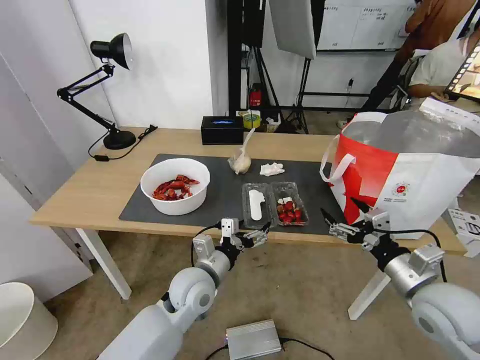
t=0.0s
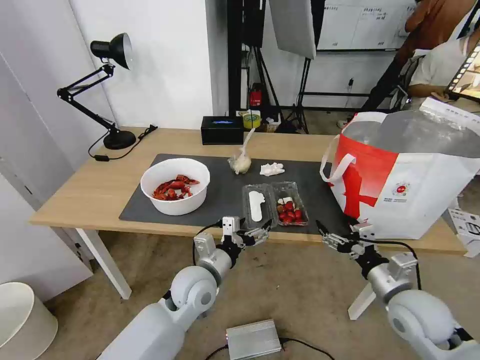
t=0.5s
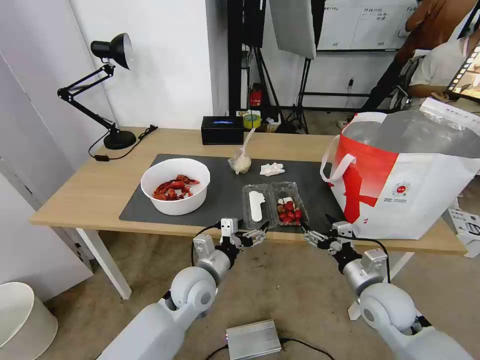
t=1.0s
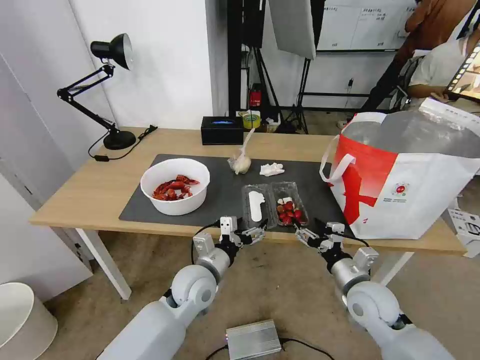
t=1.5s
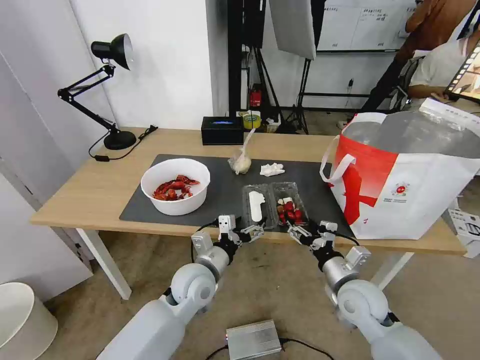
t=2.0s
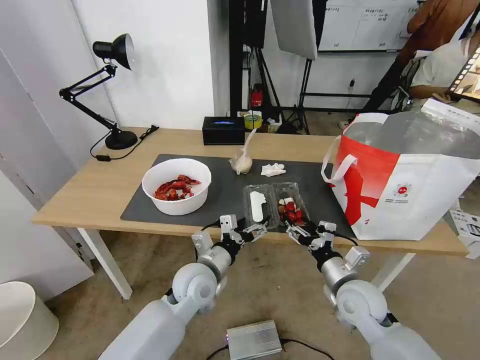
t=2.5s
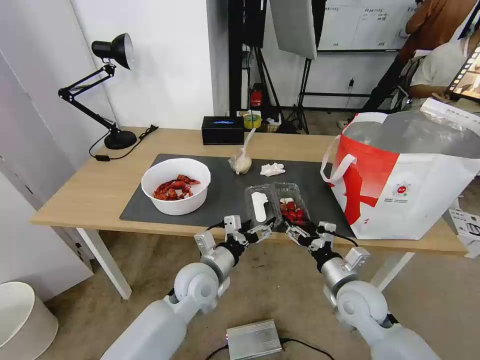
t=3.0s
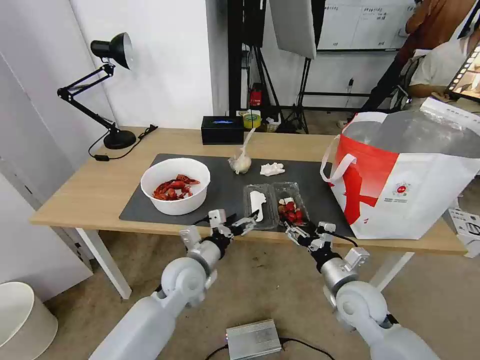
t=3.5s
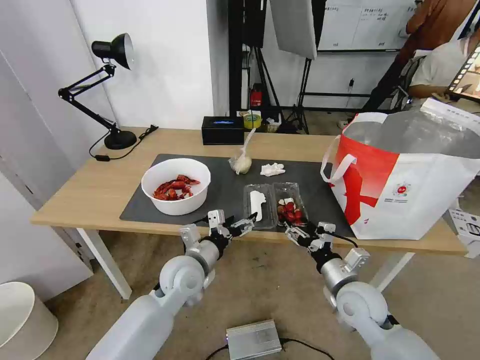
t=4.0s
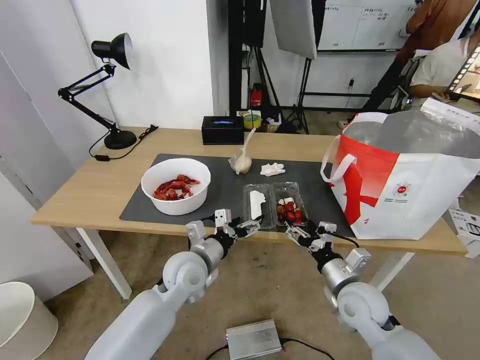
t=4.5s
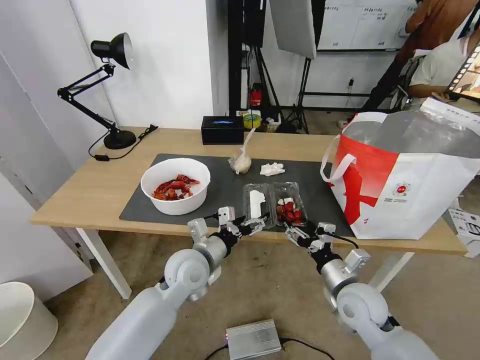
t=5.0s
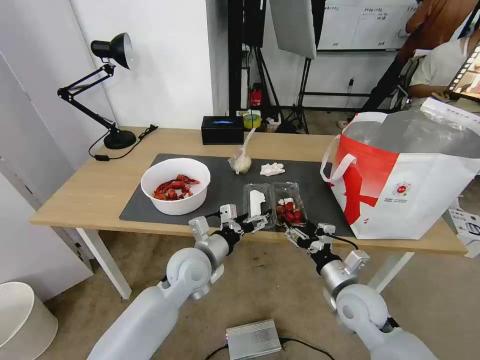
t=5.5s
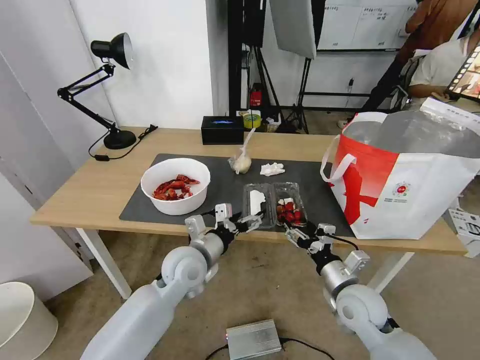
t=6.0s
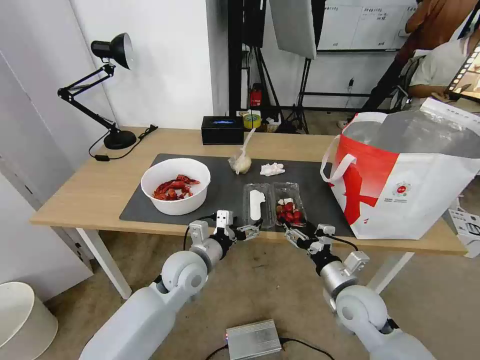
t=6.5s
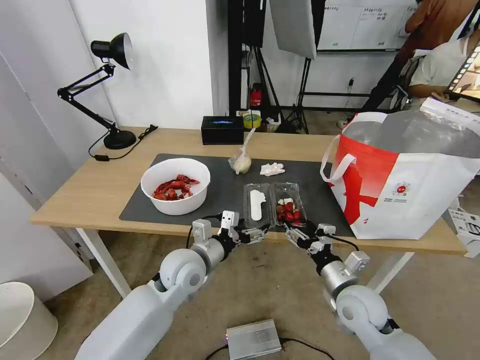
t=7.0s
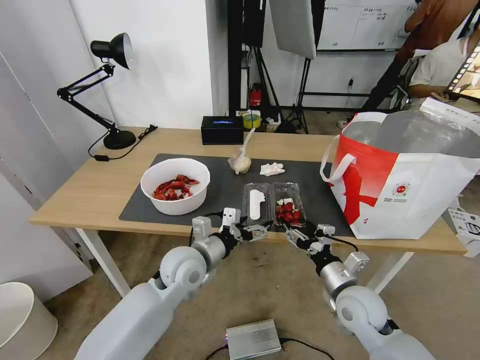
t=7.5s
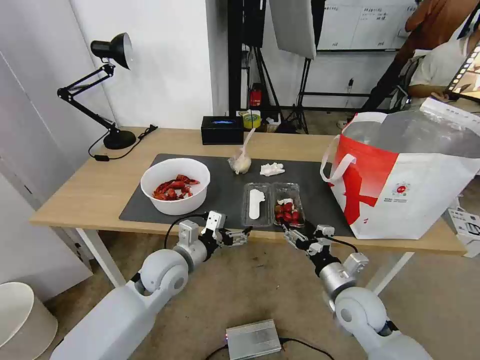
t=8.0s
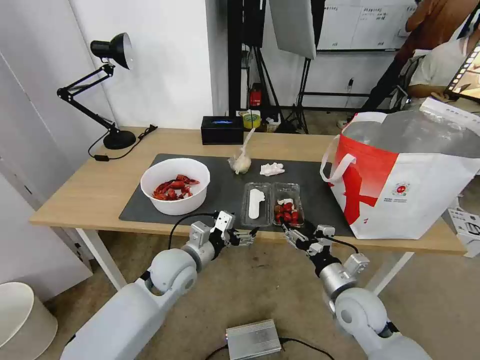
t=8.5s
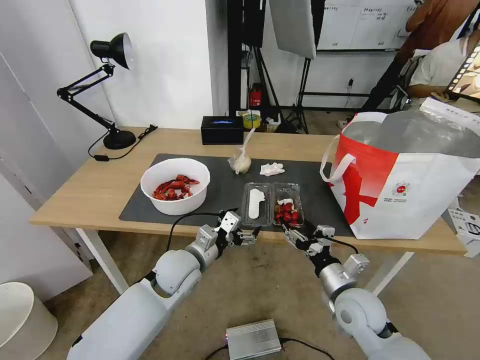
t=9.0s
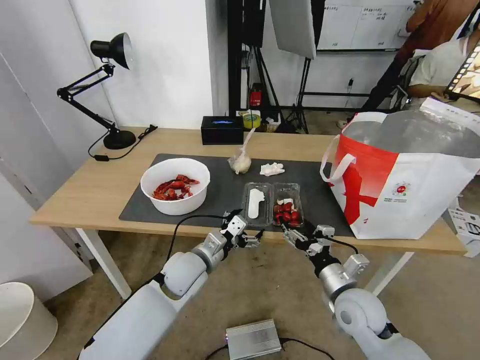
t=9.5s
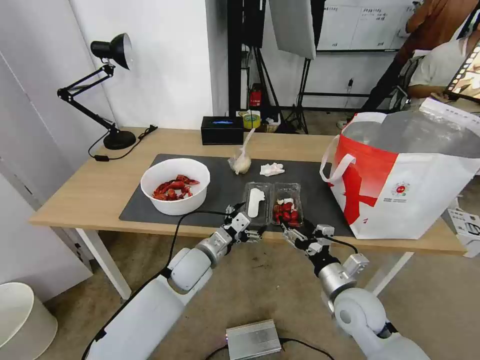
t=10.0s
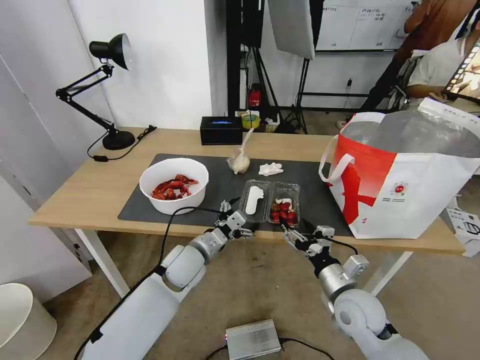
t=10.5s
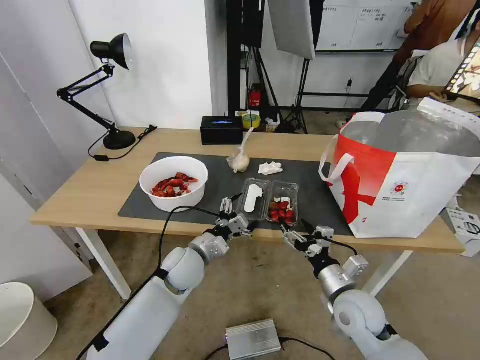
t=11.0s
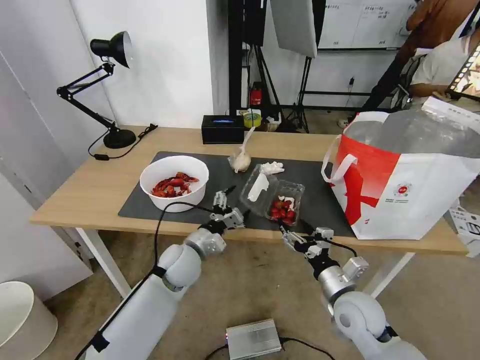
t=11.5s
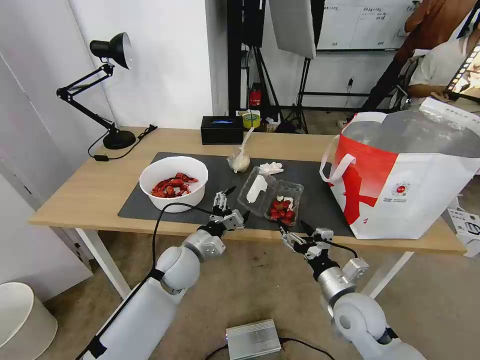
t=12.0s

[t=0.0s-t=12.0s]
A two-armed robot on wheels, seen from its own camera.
Task of the whole recording: Pick up the trash from the table and place it into the takeout bag.
t=0.0s to t=2.0s: The right gripper moves downward, to the left and forward, approximately 15 cm.
t=2.0s to t=6.0s: The grippers make only small movements.
t=8.0s to t=10.0s: The left gripper moves approximately 5 cm.

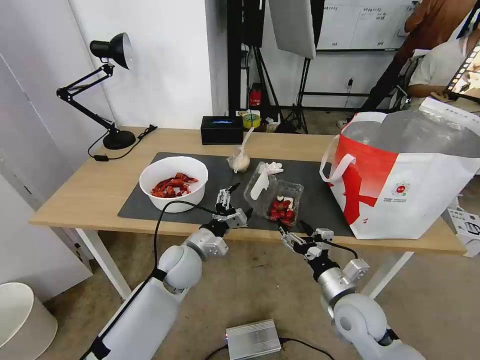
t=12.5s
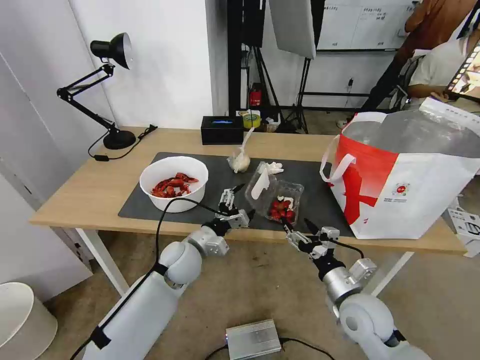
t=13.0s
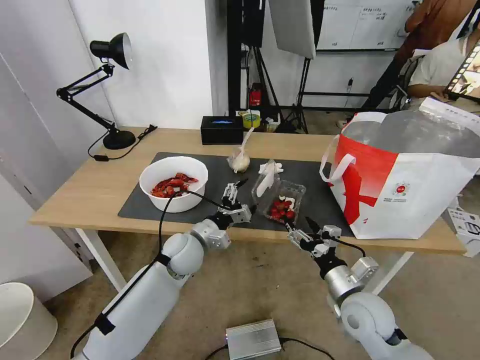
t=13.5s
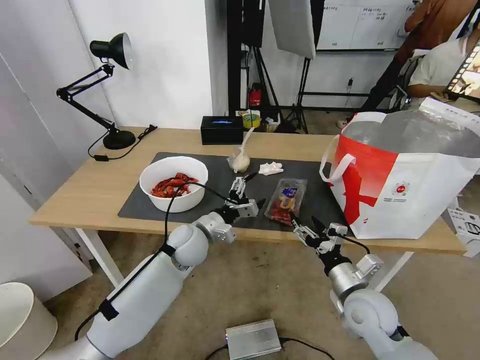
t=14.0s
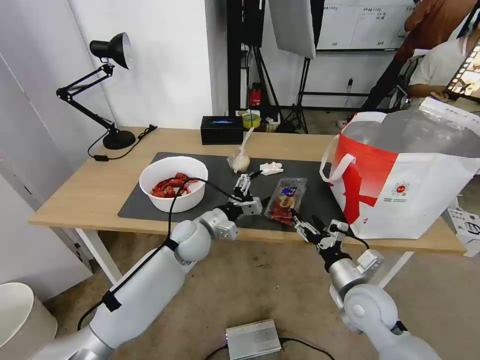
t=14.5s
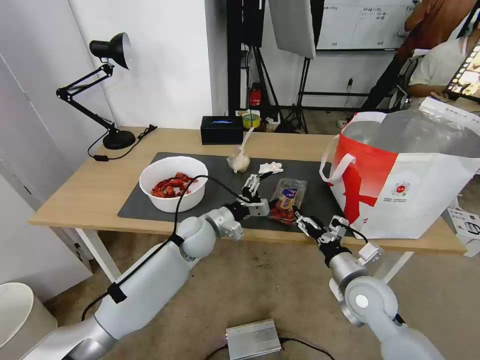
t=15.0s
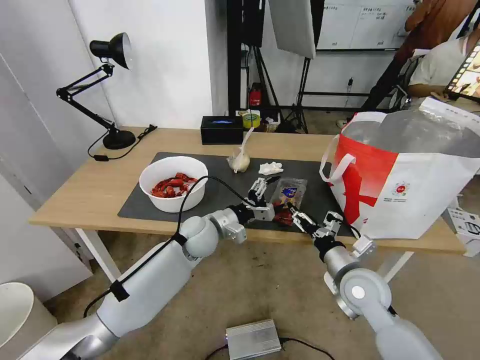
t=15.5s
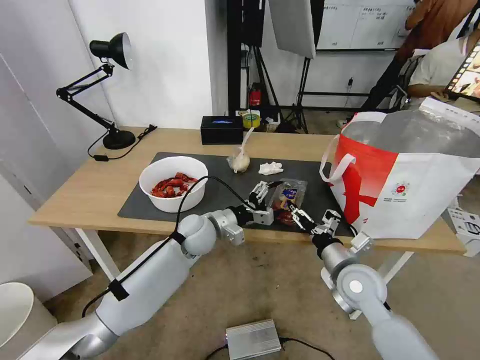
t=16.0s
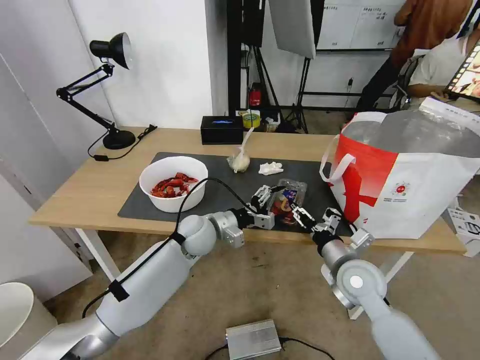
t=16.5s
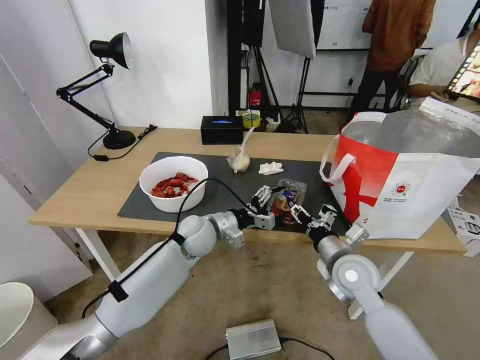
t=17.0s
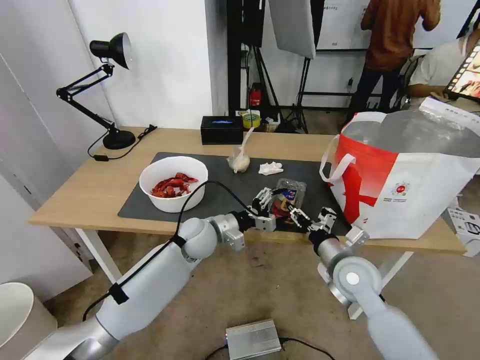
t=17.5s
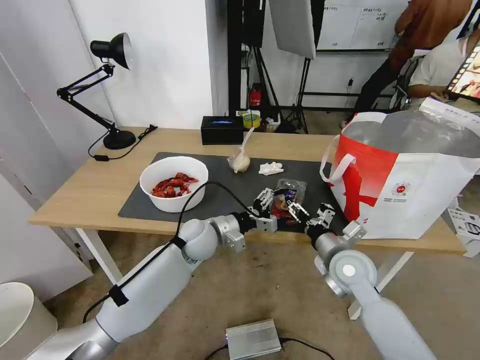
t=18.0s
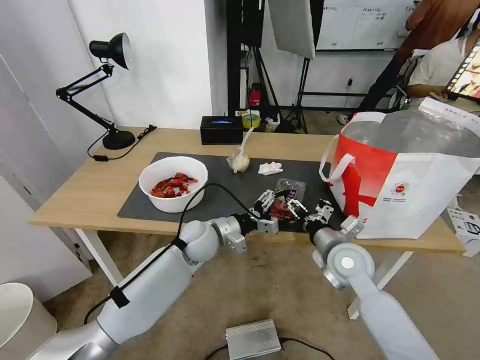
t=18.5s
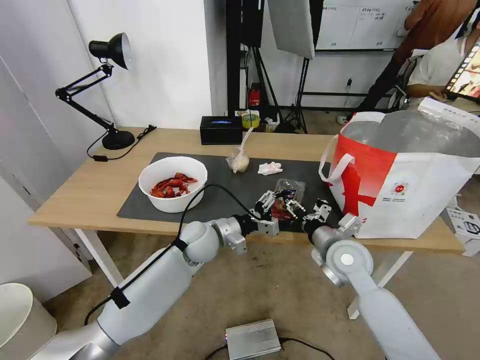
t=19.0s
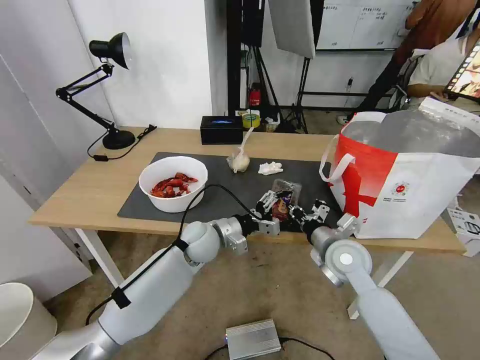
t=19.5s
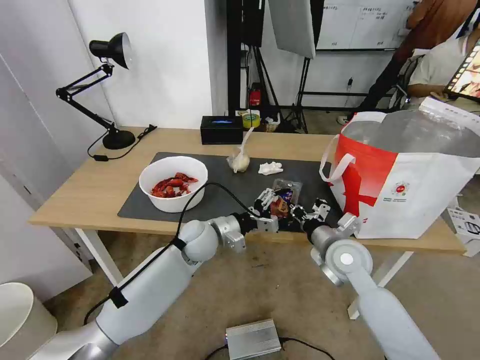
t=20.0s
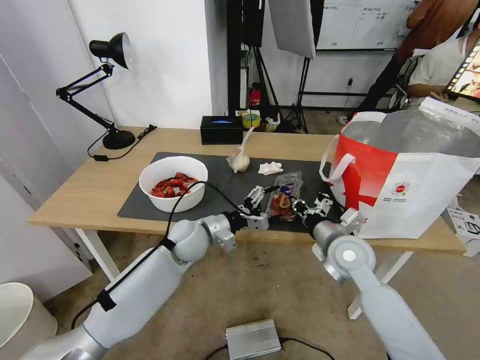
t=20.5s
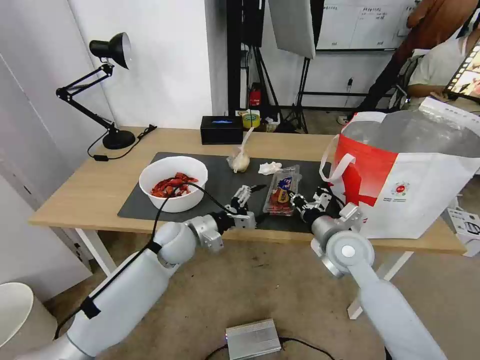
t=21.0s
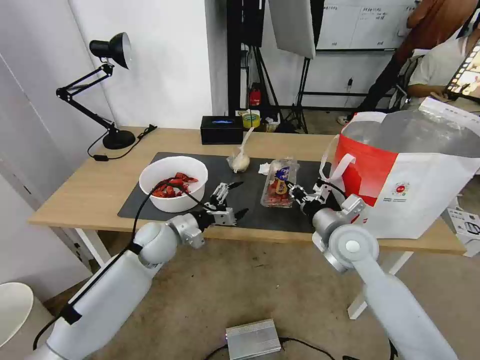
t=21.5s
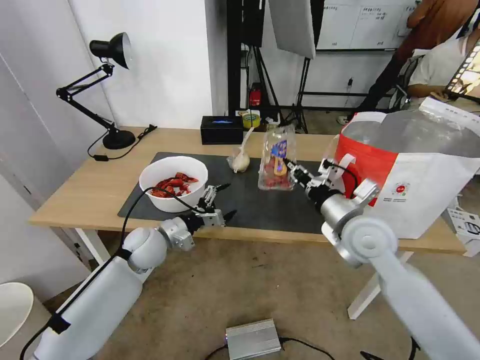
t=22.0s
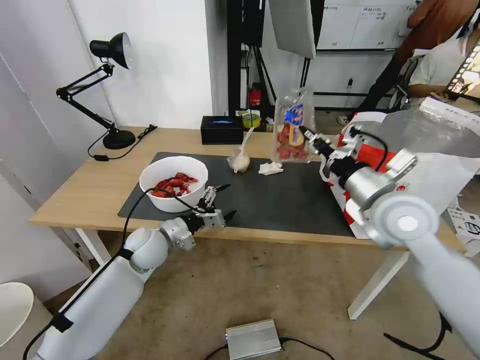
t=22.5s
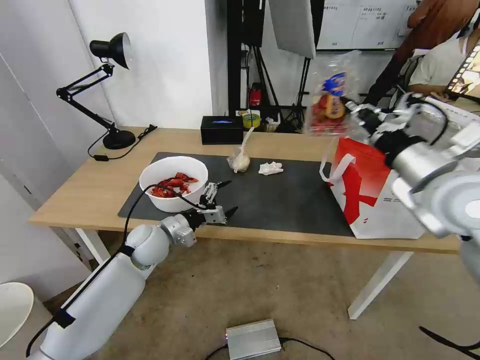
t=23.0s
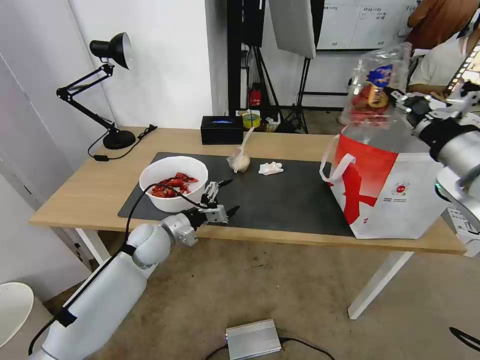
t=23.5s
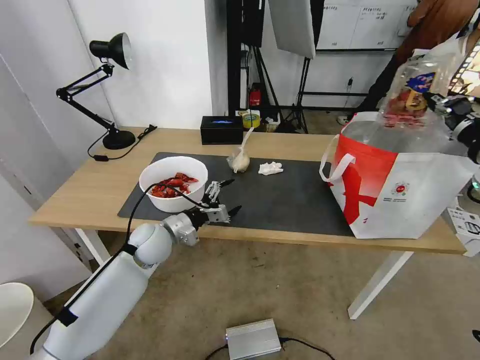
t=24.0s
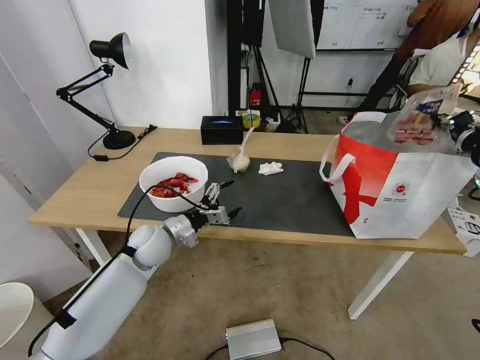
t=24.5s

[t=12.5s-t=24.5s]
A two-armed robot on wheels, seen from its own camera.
Task of the whole recording: Pick up the trash from the table and place it into the takeout bag.
t=12.5s to t=14.5s: The left gripper is displaced forward by some 5 cm.
t=14.5s to t=16.5s: The right gripper changes place by some 5 cm.
t=16.5s to t=18.5s: There are only small adjustments of the grippers.
t=18.5s to t=20.5s: The right gripper closes up.
t=20.5s to t=22.5s: The left gripper is displaced to the left by roughly 10 cm. The right gripper moves upward, some 15 cm.
t=22.5s to t=24.5s: The right gripper heads to the right and upward, covering about 20 cm.

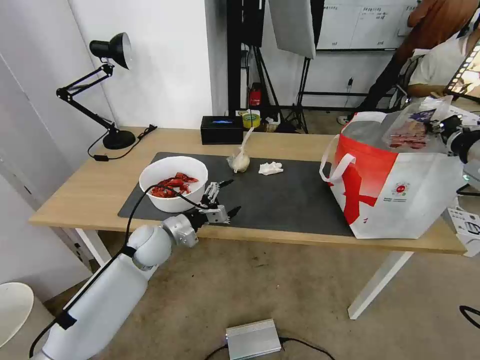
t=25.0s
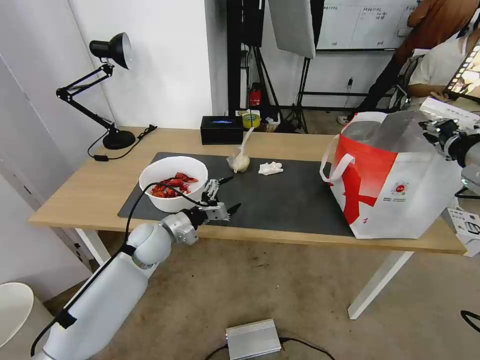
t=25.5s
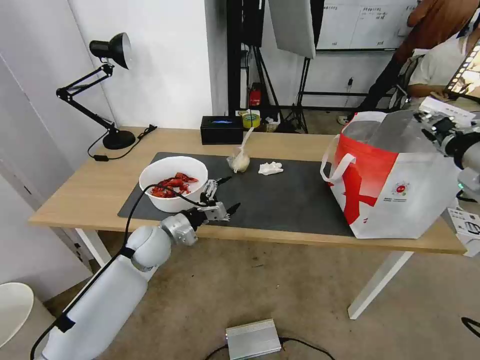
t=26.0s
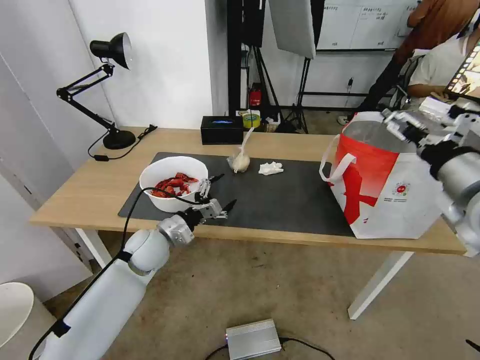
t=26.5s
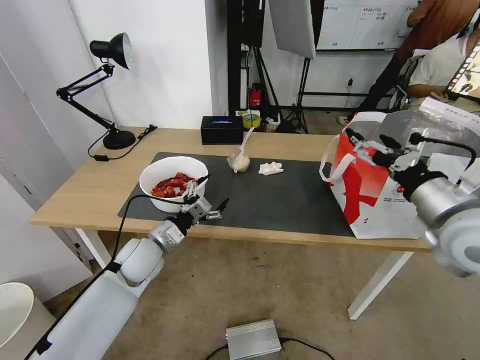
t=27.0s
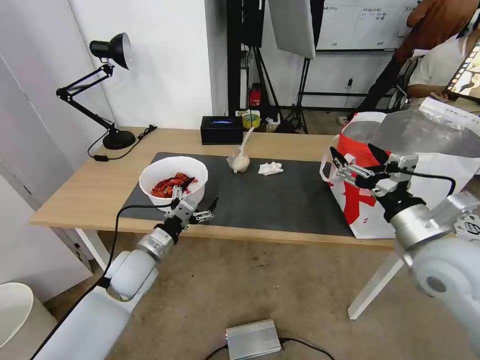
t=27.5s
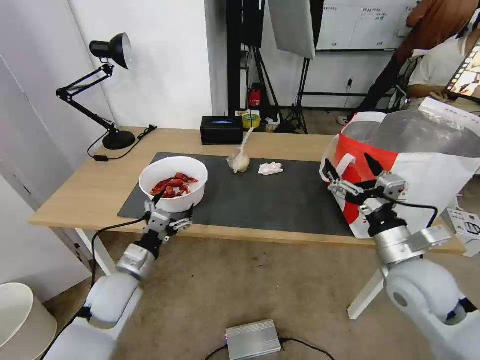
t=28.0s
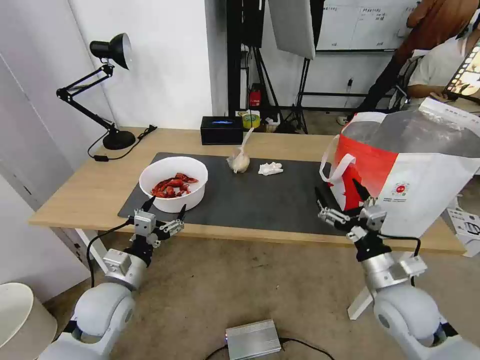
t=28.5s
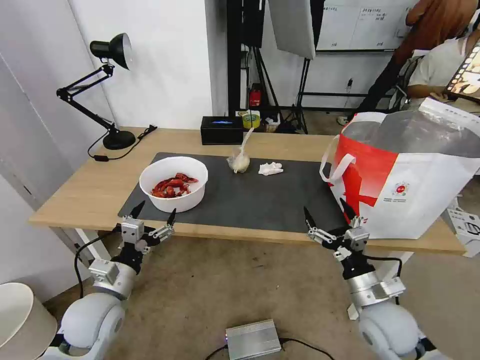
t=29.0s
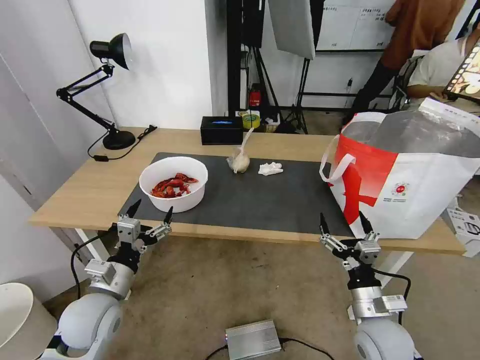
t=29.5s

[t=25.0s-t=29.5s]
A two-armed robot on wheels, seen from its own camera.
Task of the whole recording: Pick up the trash from the table and place it into the takeout bag.
t=25.0s to t=27.0s: The right gripper travels to the left, downward and backward by about 10 cm, and opens its fingers.
t=27.0s to t=29.5s: The left gripper travels backward and to the left by some 15 cm, while the right gripper moves downward, some 25 cm.
